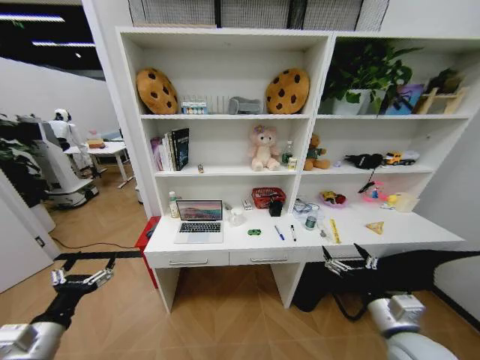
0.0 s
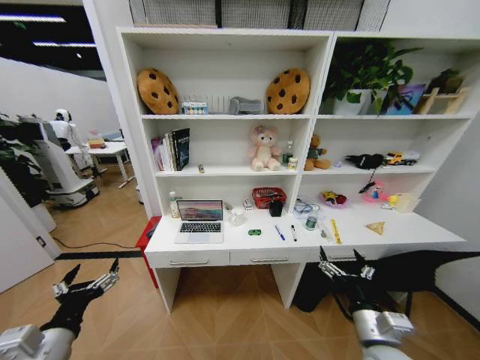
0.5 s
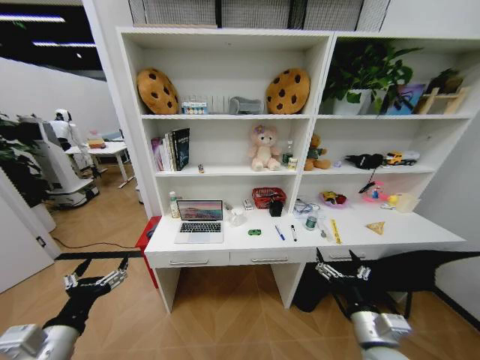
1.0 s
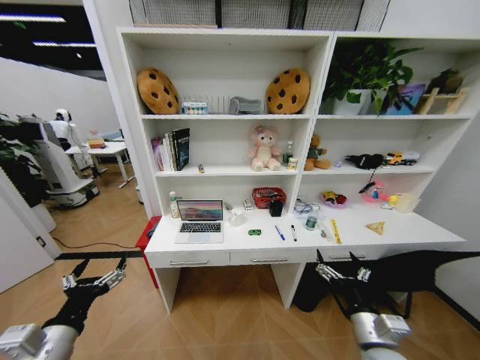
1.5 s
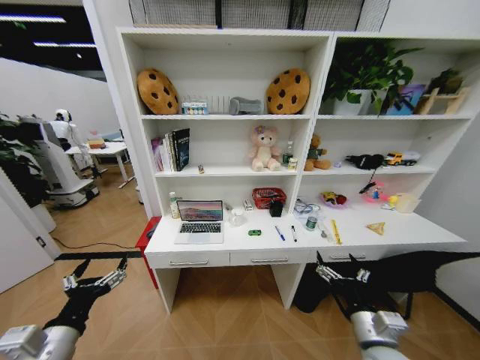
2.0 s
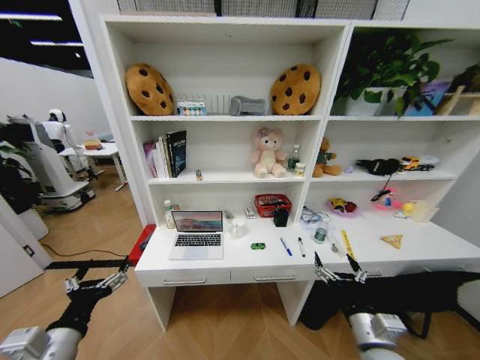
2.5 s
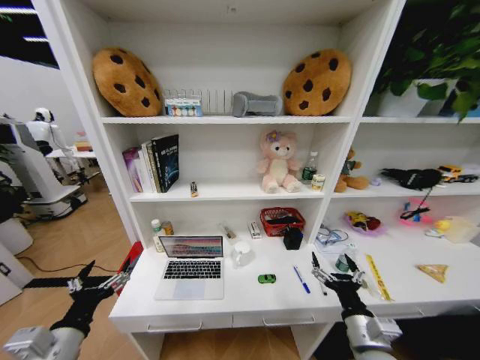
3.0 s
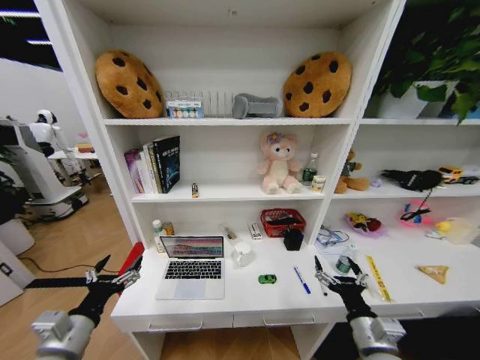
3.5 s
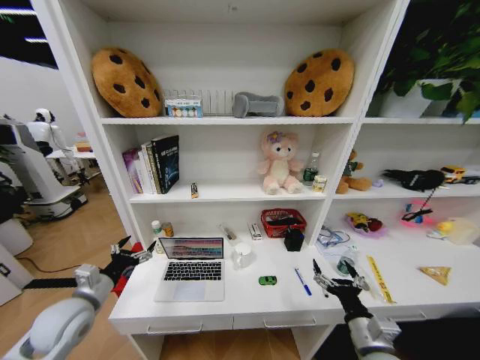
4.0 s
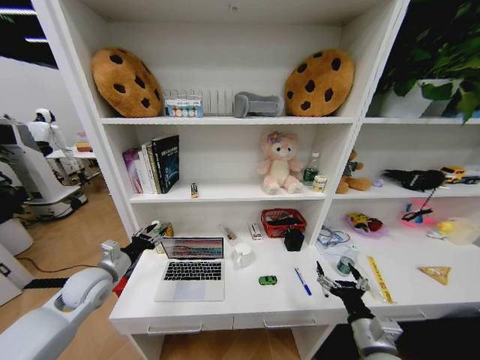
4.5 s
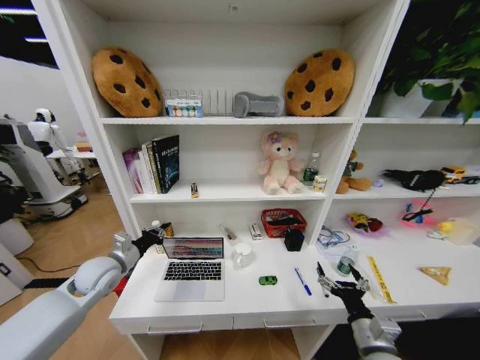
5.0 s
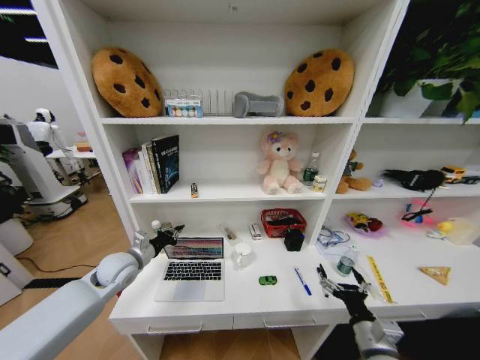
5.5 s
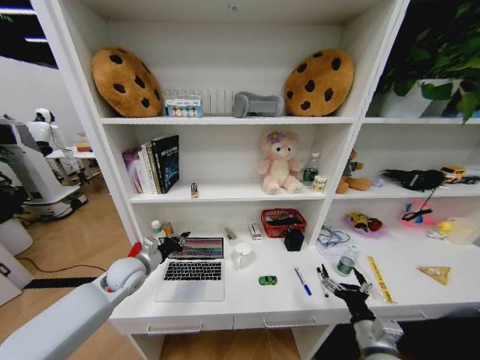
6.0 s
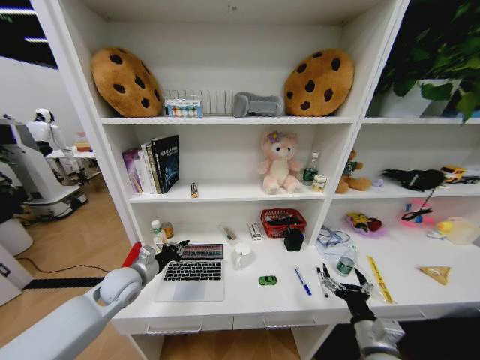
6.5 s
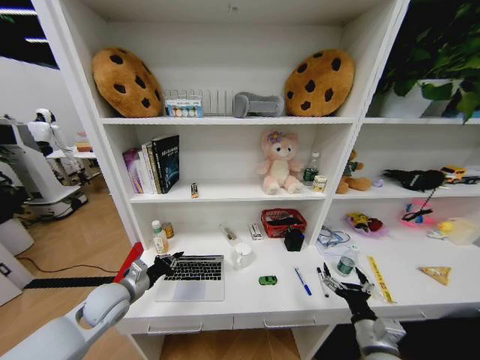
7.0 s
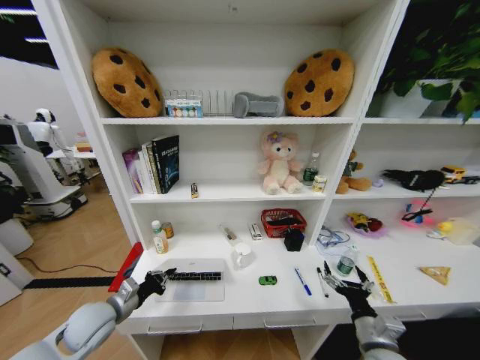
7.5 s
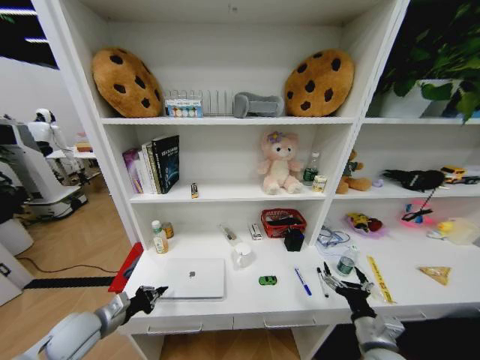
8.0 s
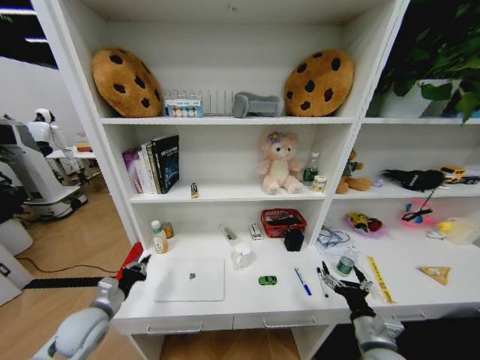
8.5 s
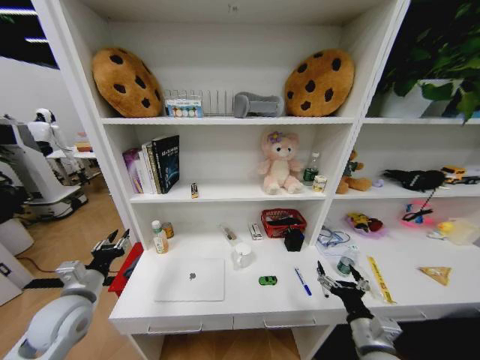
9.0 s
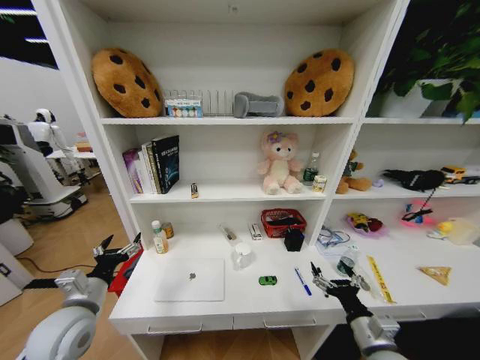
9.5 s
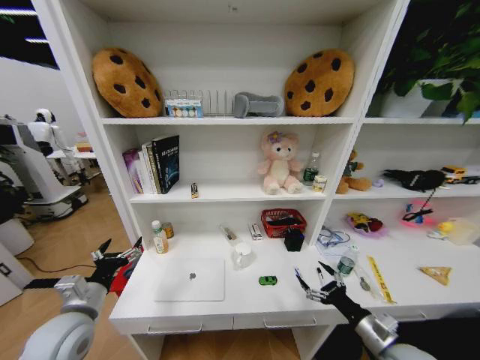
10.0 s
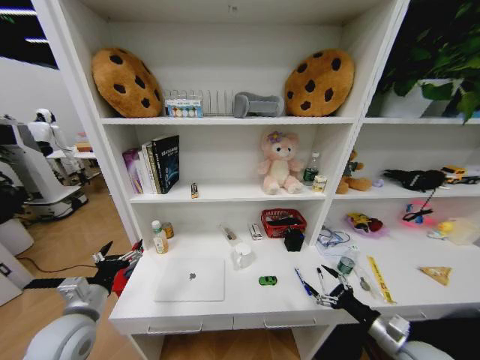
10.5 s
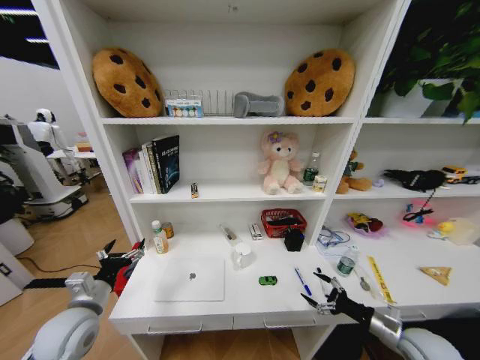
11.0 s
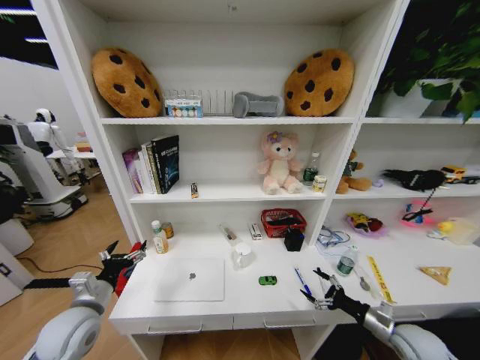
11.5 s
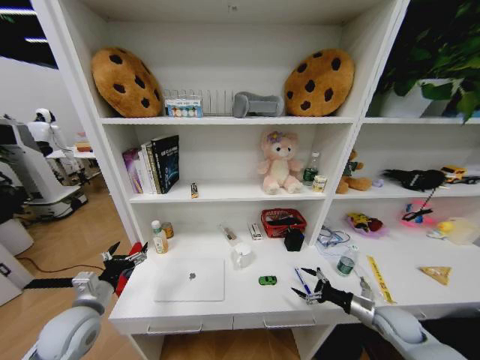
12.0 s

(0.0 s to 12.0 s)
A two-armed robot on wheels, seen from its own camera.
Task of the whole recording: Organize the objects on the table.
2.0 s - 4.0 s: The left gripper is displaced forward by some 10 cm.
4.0 s - 6.0 s: The left gripper heads forward and to the right, covering about 15 cm, and closes.
6.0 s - 8.0 s: The left gripper is displaced backward and to the left by approximately 15 cm.
8.0 s - 10.0 s: The left gripper is displaced upward by approximately 5 cm, and opens its fingers.
10.0 s - 12.0 s: The right gripper moves forward, to the right and downward, approximately 15 cm.

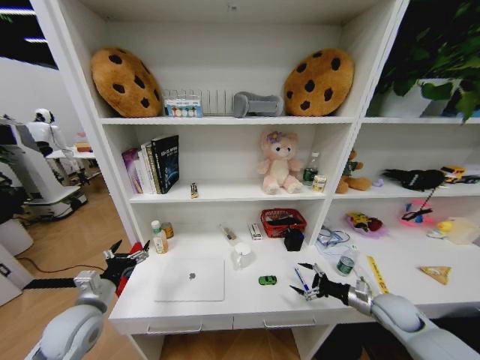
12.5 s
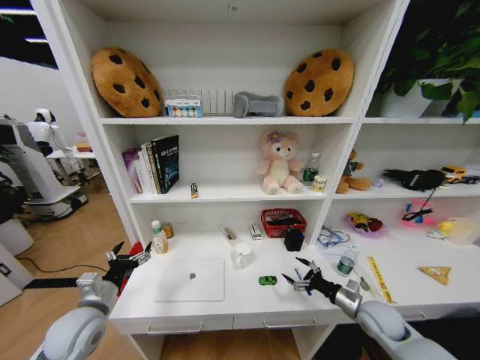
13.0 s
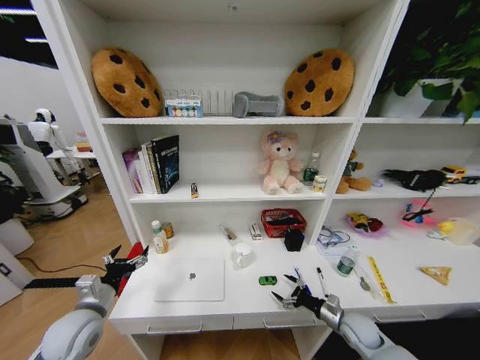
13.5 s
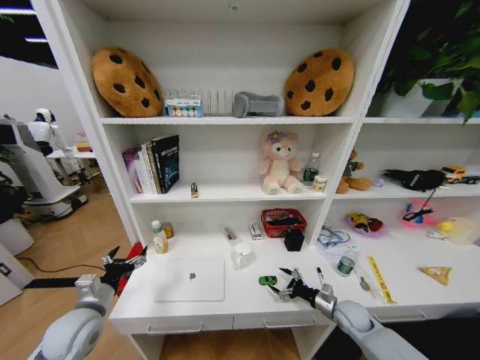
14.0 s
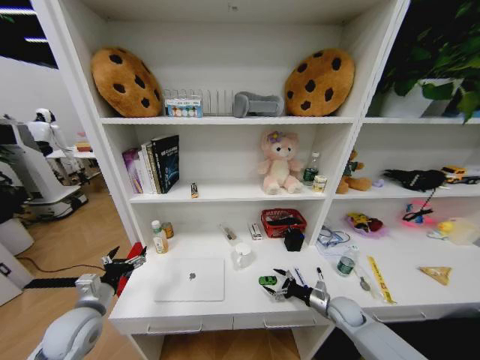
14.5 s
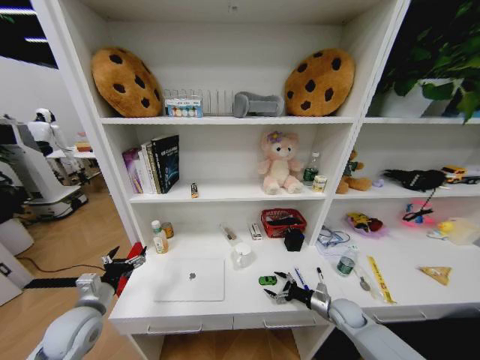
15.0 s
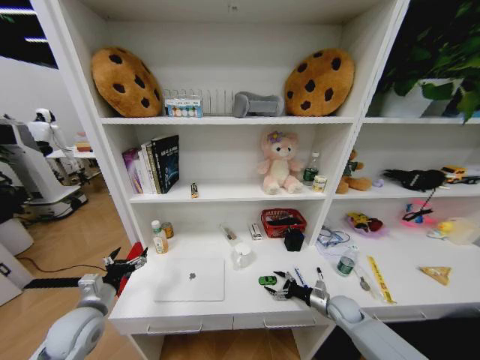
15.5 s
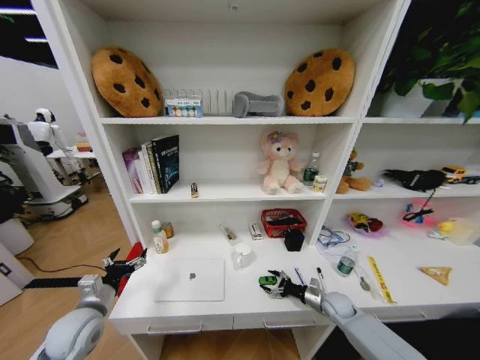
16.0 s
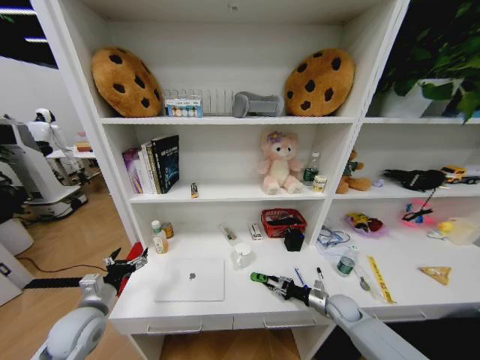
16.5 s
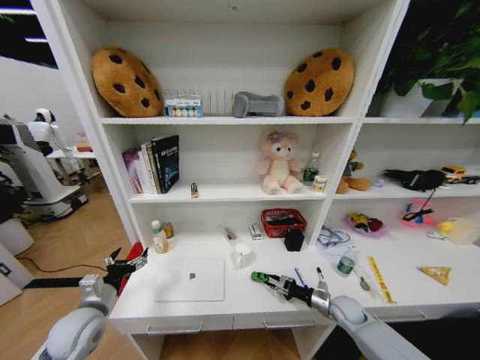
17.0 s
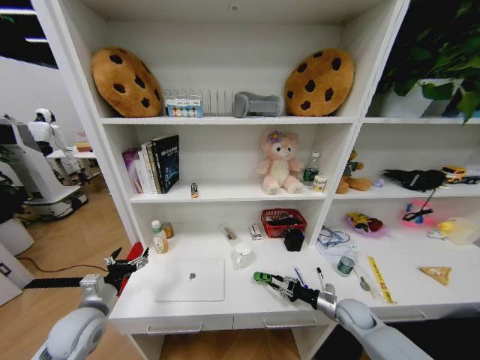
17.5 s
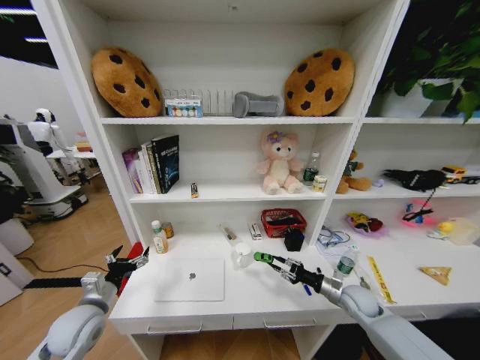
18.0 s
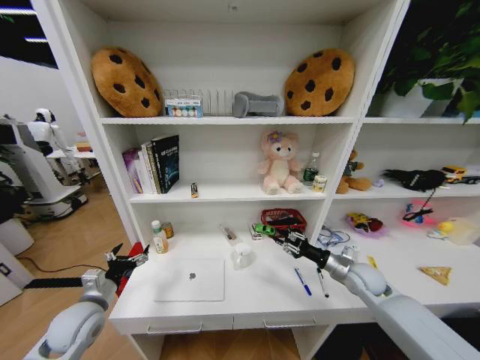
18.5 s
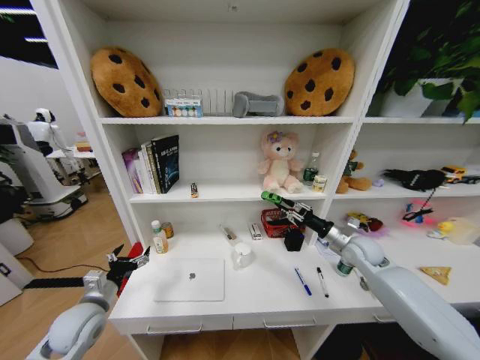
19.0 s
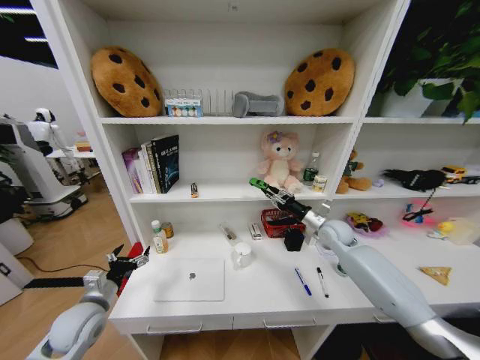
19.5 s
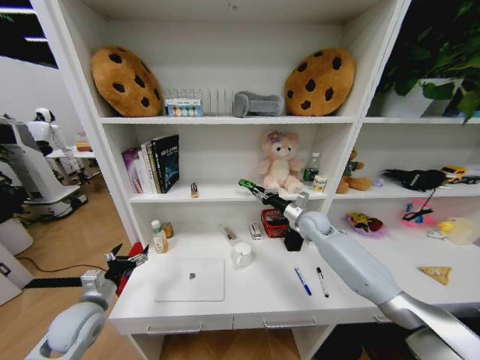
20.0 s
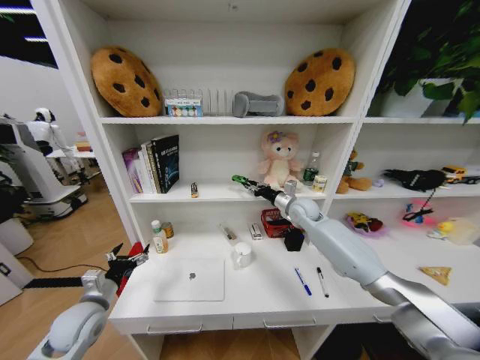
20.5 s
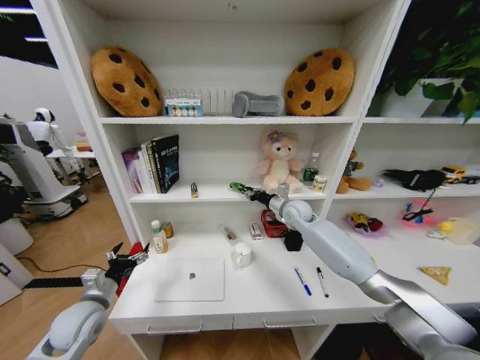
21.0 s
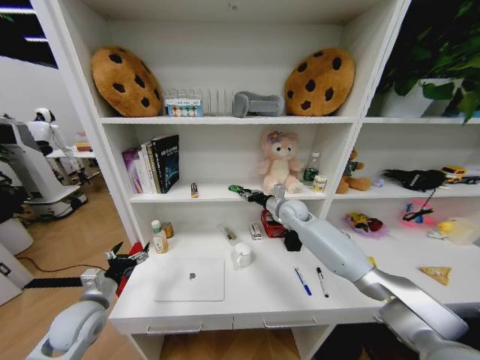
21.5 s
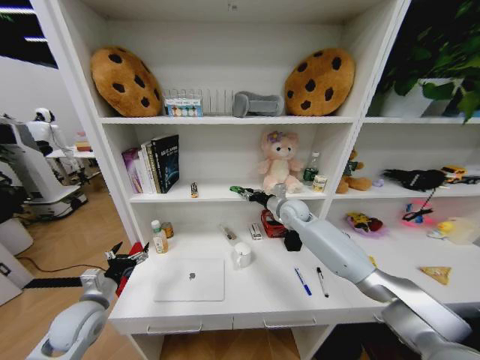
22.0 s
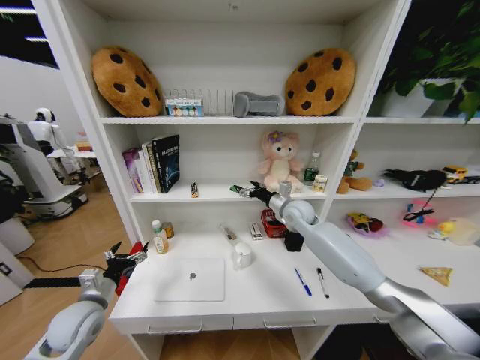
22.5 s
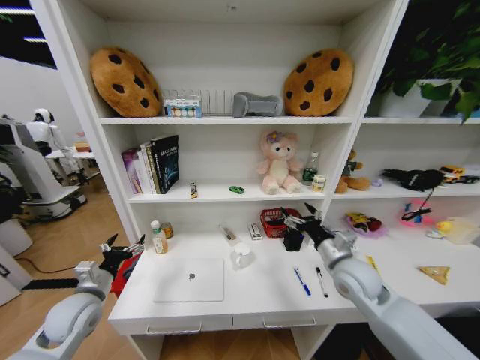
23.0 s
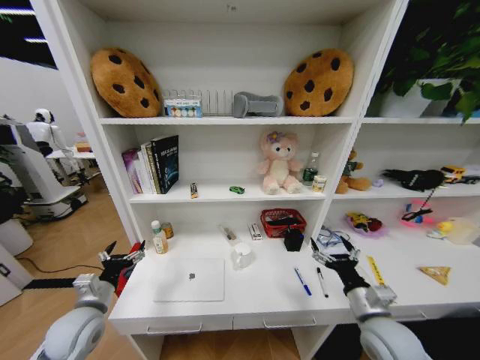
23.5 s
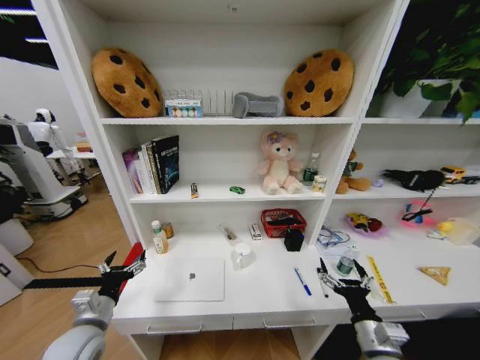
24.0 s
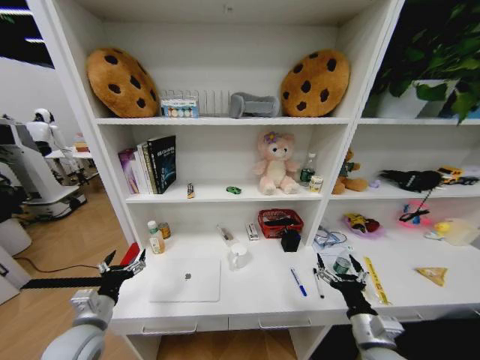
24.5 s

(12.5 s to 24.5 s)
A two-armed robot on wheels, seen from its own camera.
Task of the whole recording: Organize the objects on the table.
12.5 s - 14.5 s: The right gripper shifts roughly 15 cm downward and to the left.
14.5 s - 16.5 s: The right gripper closes up.
16.5 s - 18.5 s: The right gripper travels upward by about 15 cm.
18.5 s - 20.5 s: The right gripper shifts about 25 cm forward, to the left and upward.
20.5 s - 22.5 s: The right gripper opens its fingers.
22.5 s - 24.5 s: The right gripper travels backward by approximately 35 cm. Meanwhile the left gripper changes place by about 5 cm.

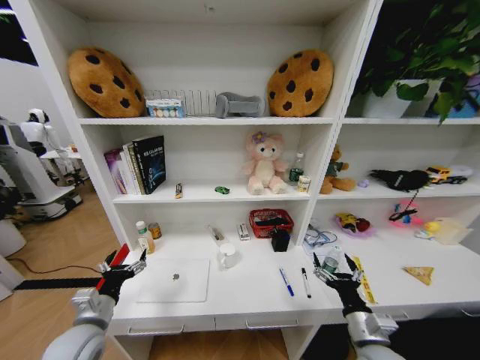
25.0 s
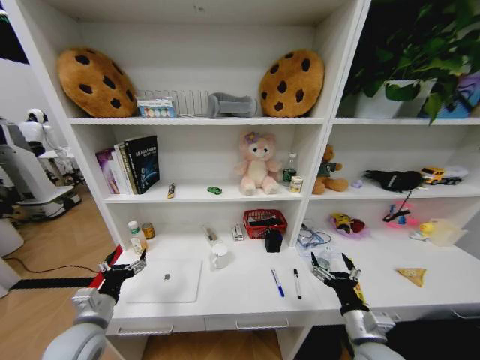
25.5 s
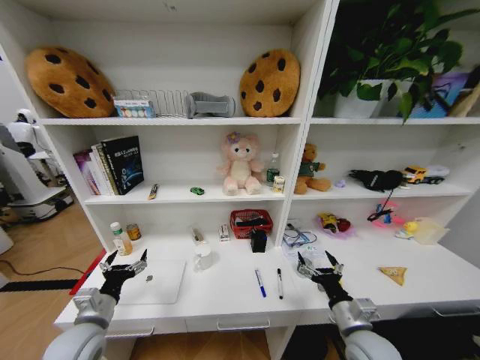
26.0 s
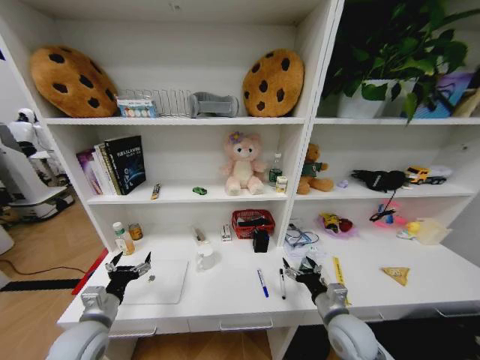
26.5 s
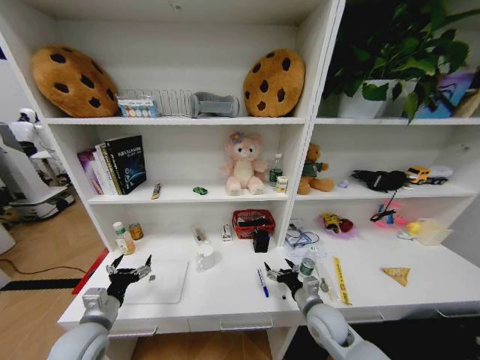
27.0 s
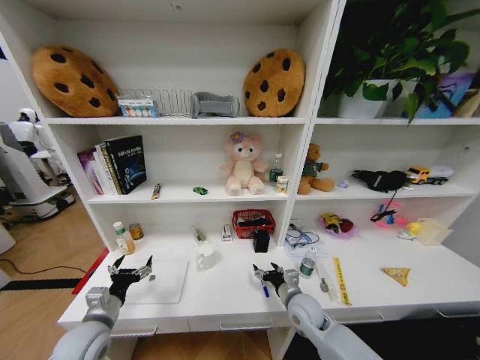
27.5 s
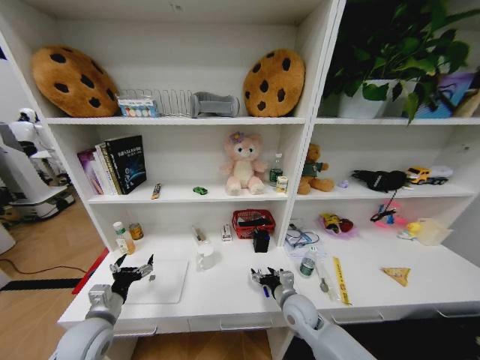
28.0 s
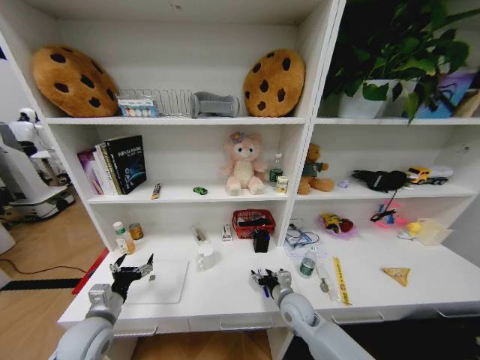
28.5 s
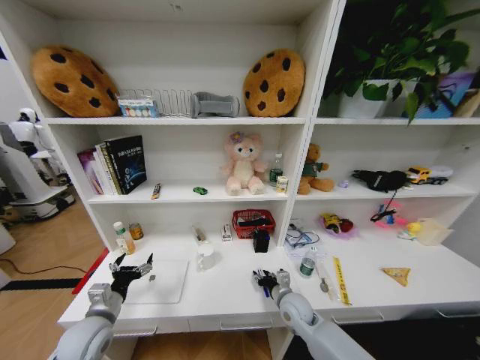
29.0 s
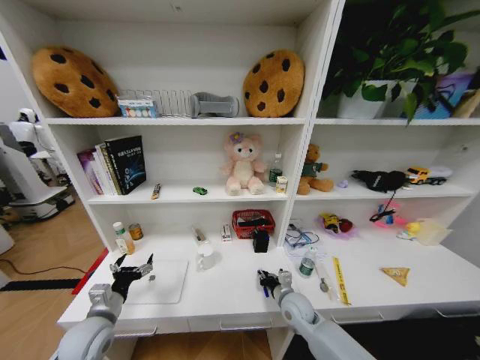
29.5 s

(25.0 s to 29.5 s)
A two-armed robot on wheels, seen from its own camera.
Task of the whole recording: Organize the objects on the table.
25.0 s - 27.0 s: The right gripper shifts roughly 15 cm forward, to the left and downward.
27.0 s - 29.5 s: The right gripper is displaced to the left by approximately 5 cm, and closes.
